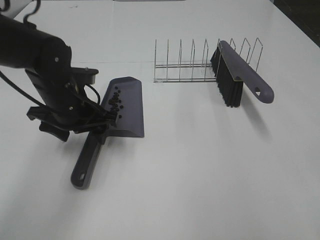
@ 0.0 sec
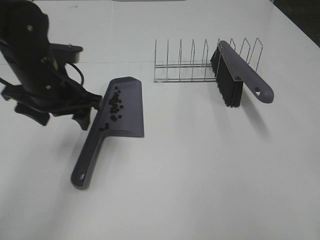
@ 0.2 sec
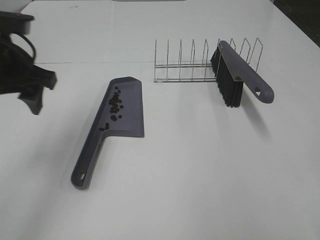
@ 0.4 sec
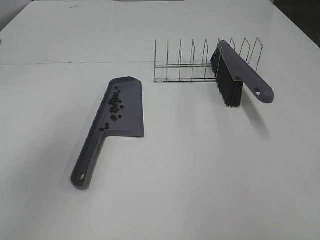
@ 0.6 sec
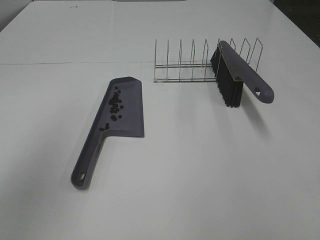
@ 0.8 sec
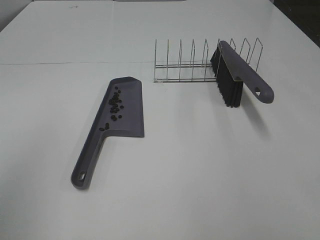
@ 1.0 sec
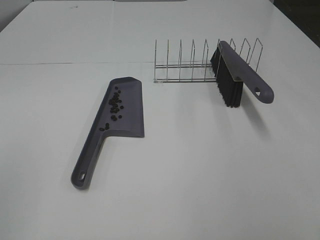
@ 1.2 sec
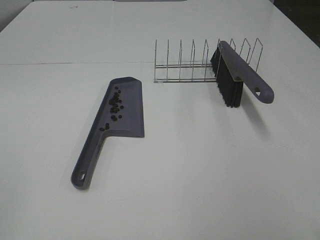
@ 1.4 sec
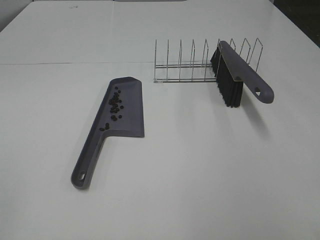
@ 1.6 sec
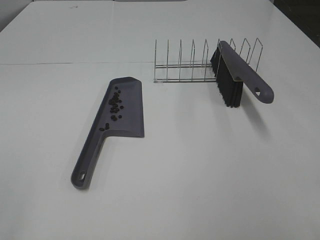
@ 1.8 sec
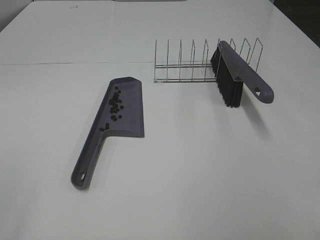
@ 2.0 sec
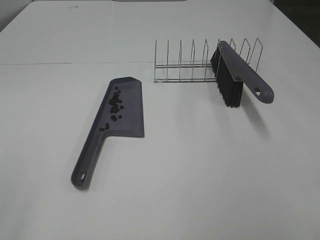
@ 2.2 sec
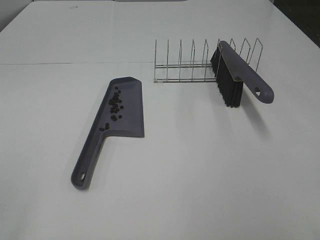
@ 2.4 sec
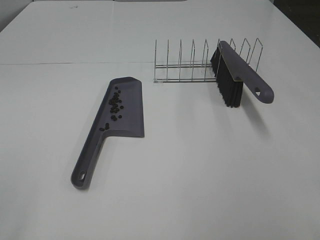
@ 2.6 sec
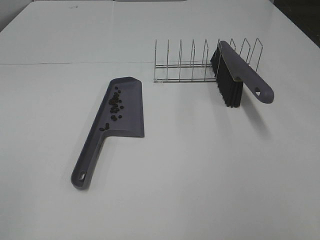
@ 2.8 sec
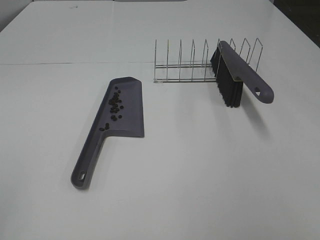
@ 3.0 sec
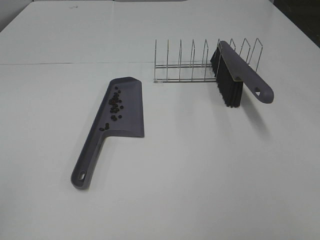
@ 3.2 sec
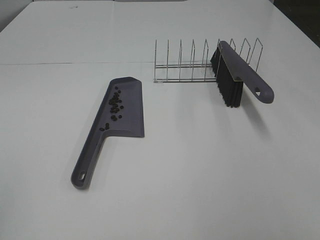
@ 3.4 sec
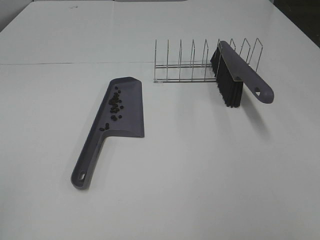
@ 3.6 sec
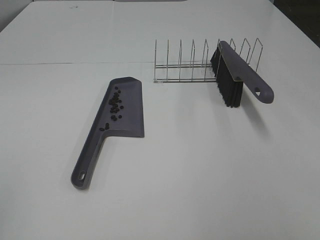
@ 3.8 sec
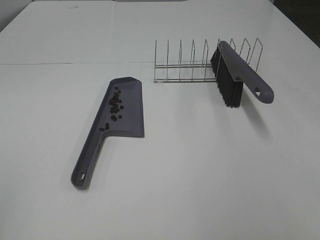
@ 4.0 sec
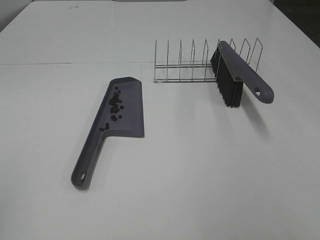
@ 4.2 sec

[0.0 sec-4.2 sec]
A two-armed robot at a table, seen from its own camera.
Task of the whole recording: Sweep Coffee Bean.
0.0 sec to 1.4 sec: The left gripper shifts approximately 40 cm backward, to the left and upward.
